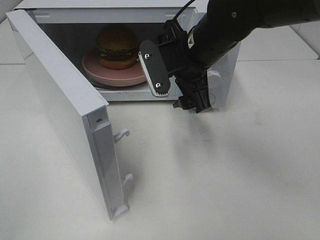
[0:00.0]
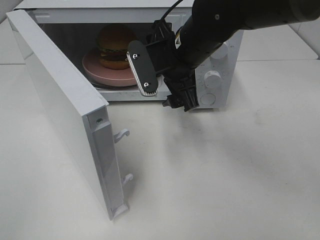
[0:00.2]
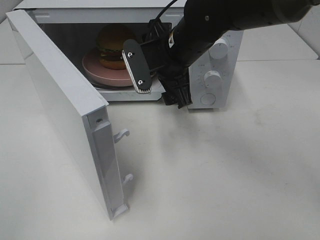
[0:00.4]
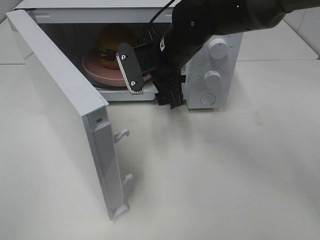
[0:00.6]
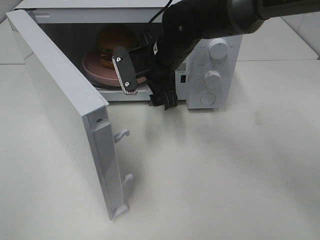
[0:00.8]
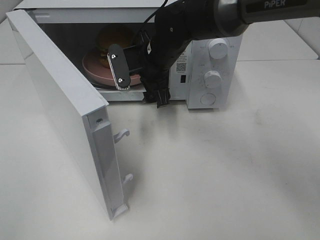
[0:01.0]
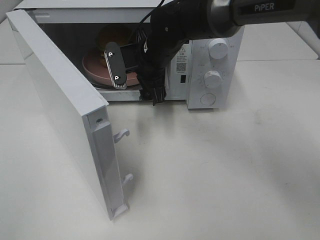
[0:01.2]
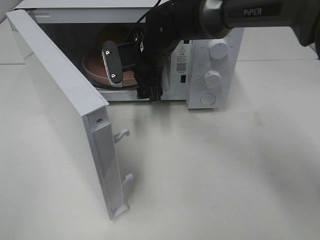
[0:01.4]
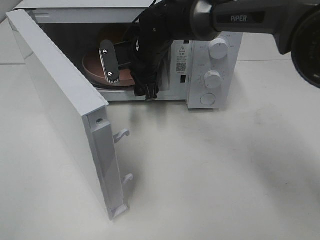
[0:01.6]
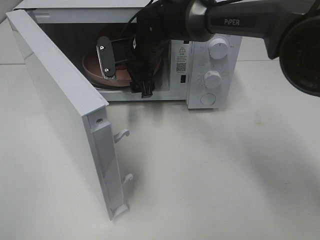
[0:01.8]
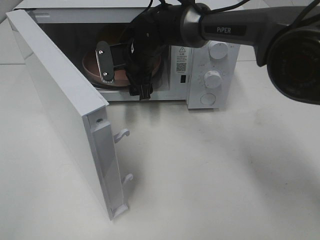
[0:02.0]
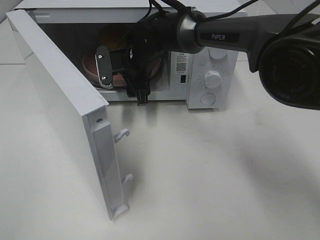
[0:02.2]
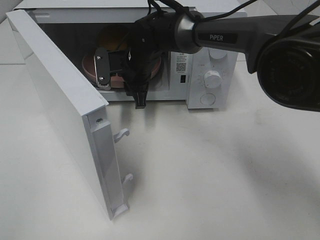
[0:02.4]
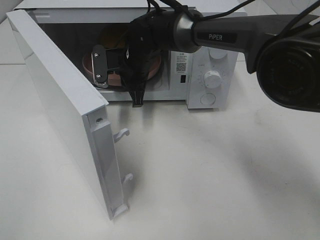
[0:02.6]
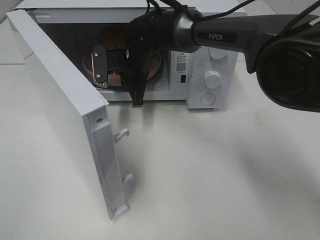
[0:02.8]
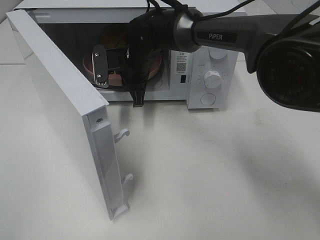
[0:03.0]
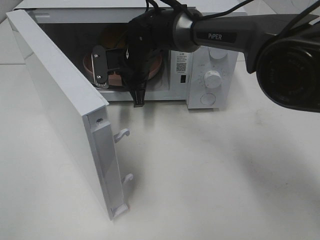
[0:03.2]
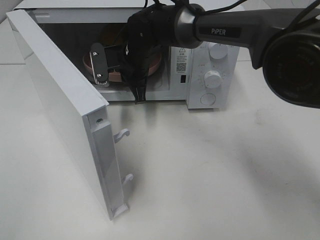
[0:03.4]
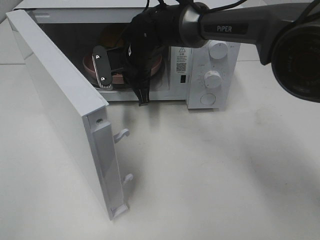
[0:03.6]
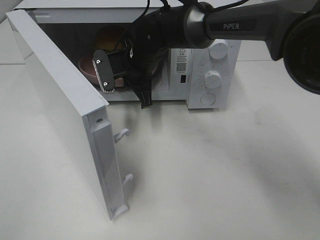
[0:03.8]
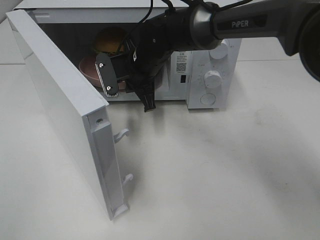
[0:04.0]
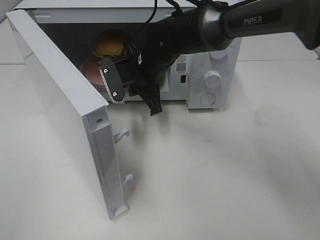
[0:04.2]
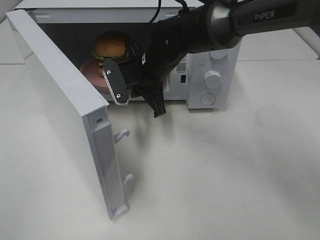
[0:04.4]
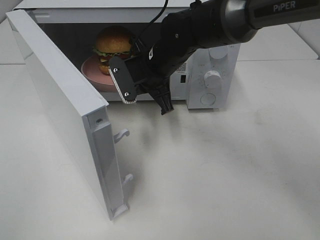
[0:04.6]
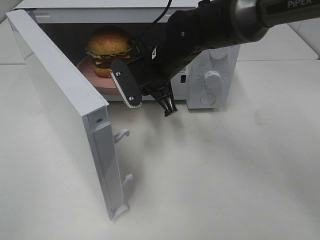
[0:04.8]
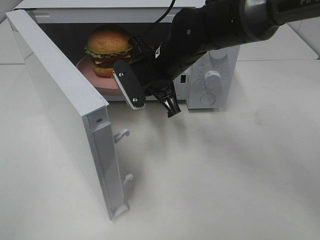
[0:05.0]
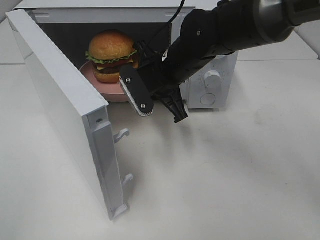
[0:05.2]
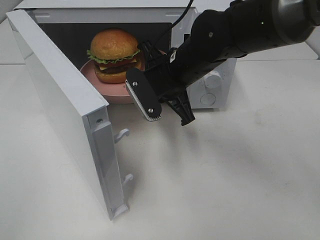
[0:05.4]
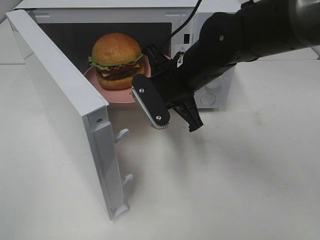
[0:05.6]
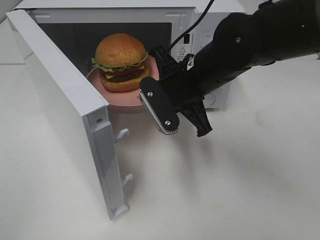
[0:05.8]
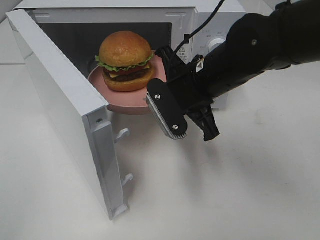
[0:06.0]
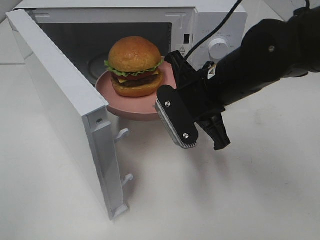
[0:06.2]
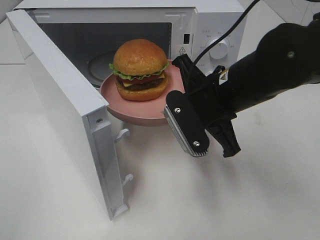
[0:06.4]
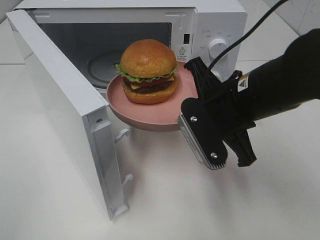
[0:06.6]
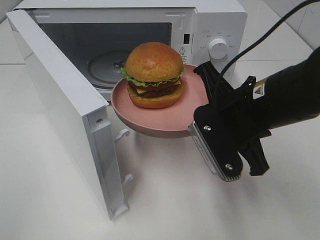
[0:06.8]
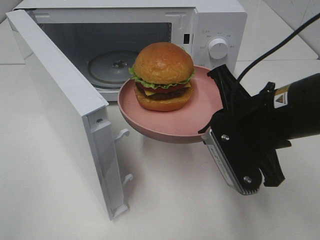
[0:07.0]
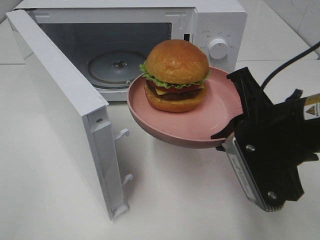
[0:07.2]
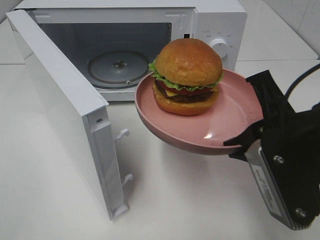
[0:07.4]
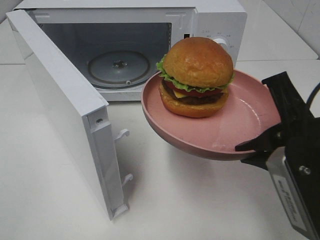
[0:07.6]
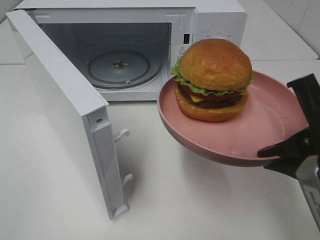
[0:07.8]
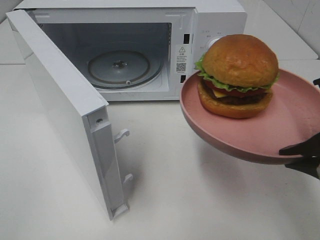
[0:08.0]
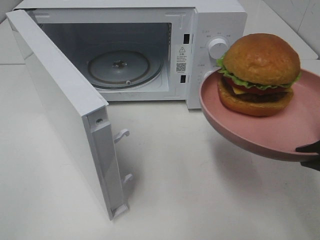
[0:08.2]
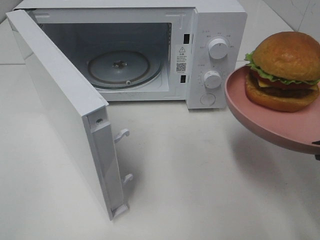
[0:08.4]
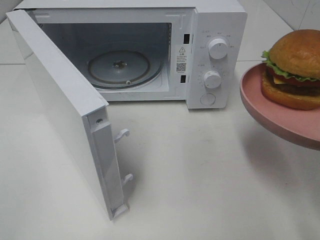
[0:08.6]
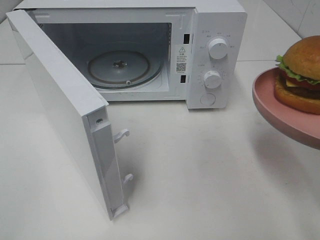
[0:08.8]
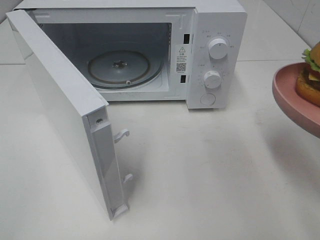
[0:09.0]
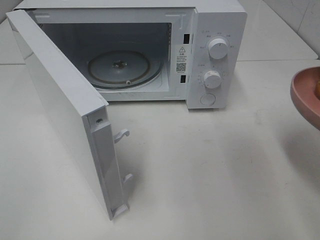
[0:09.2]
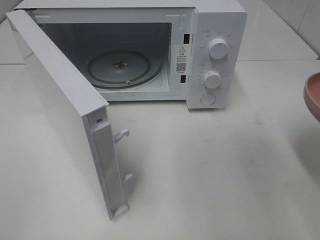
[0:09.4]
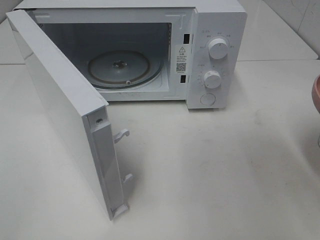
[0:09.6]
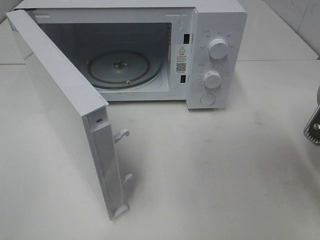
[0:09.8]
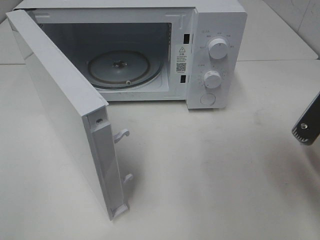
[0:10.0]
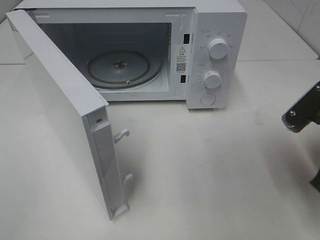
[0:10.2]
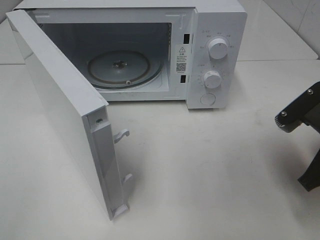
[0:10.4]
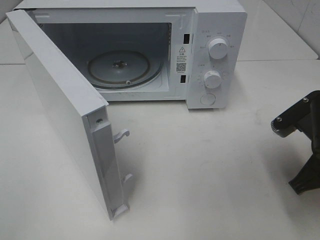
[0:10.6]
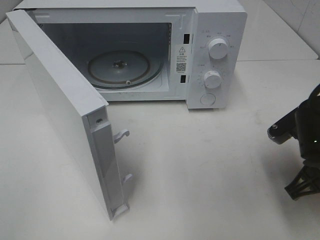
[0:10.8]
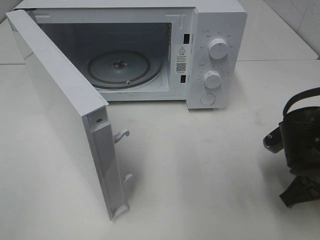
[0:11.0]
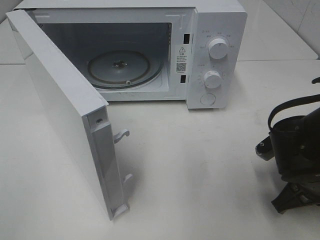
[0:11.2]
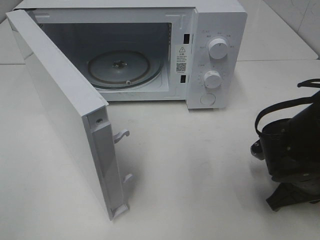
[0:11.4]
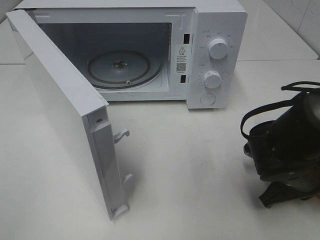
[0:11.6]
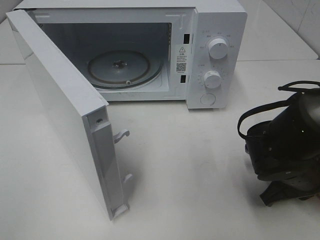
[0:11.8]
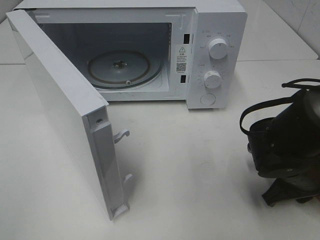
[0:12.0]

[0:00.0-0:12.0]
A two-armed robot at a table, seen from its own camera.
Task of the whole recording: Heat the burger.
Step, 0:00.0 to 0:02.8: Right hand: grab the plate with the hamburger.
0:00.0 to 0:01.6: The right gripper goes approximately 15 cm forward, to the left and downward.
0:01.6 to 0:03.0: The right gripper closes up.
0:03.0 to 0:04.4: The right gripper goes some 5 cm backward.
0:04.4 to 0:06.0: The right gripper moves backward and to the right, approximately 15 cm.
0:06.0 to 0:07.6: The right gripper shifts some 20 cm backward and to the right.
0:07.6 to 0:09.0: The right gripper travels to the right by some 5 cm.
0:09.0 to 0:10.4: The right gripper heads downward and forward, covering about 10 cm.
0:10.4 to 0:12.0: The right gripper goes roughly 10 cm downward, and opens up.

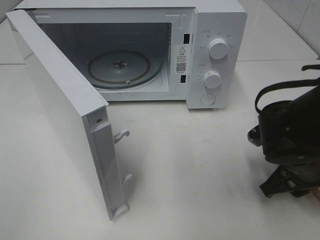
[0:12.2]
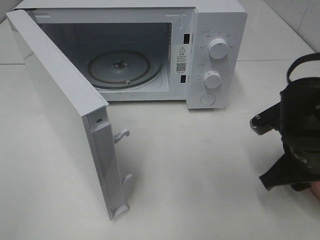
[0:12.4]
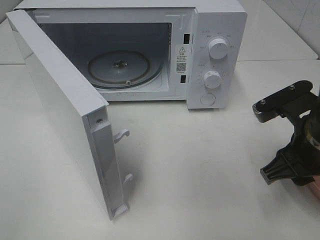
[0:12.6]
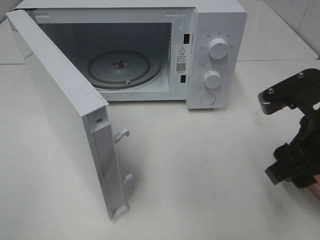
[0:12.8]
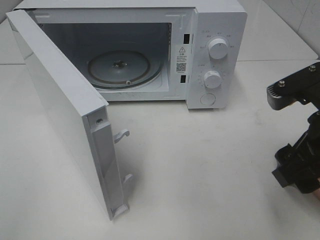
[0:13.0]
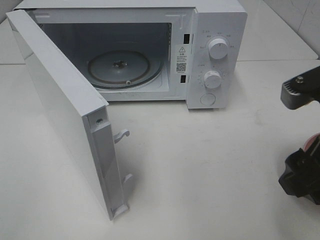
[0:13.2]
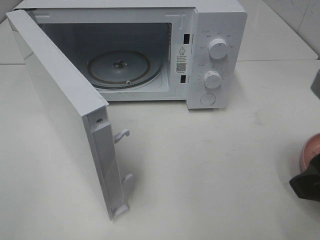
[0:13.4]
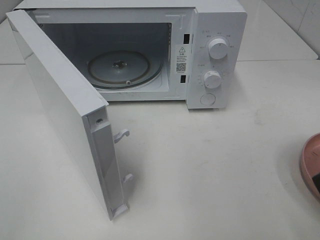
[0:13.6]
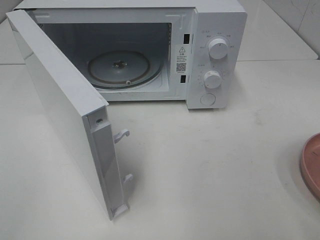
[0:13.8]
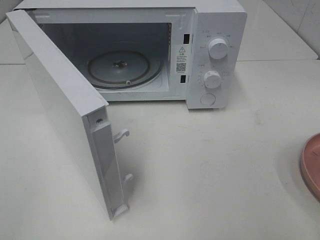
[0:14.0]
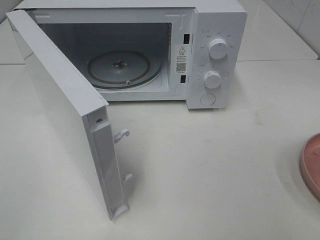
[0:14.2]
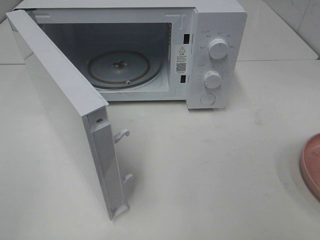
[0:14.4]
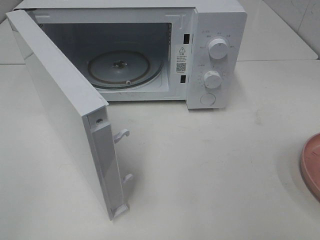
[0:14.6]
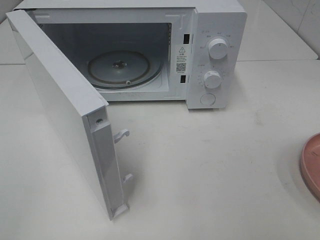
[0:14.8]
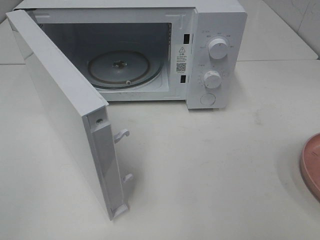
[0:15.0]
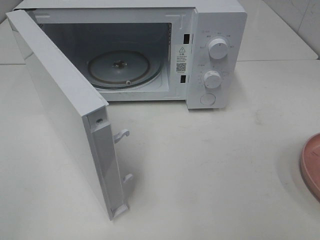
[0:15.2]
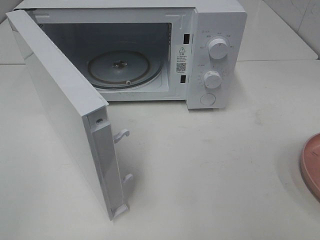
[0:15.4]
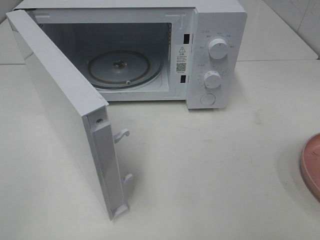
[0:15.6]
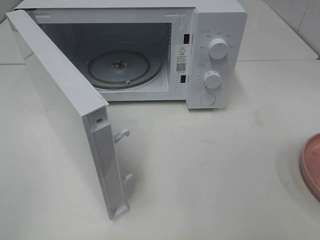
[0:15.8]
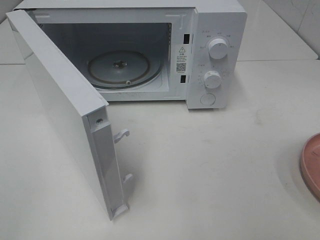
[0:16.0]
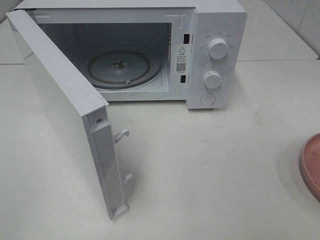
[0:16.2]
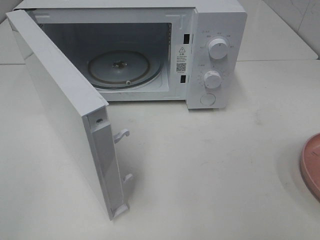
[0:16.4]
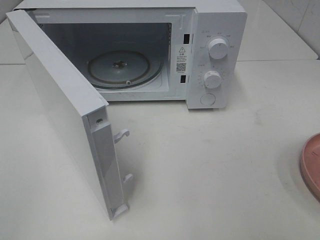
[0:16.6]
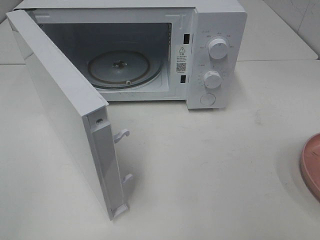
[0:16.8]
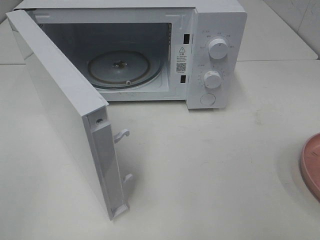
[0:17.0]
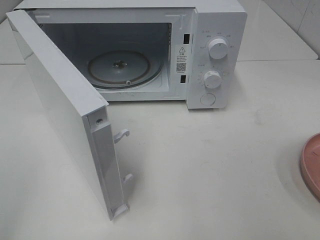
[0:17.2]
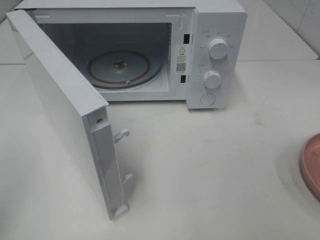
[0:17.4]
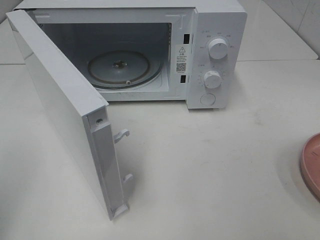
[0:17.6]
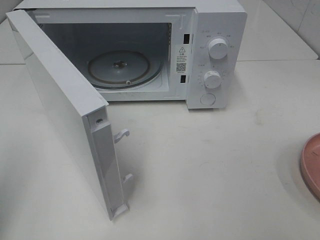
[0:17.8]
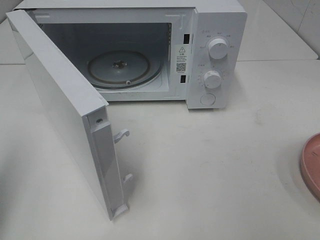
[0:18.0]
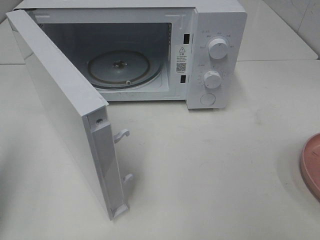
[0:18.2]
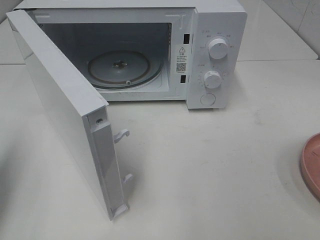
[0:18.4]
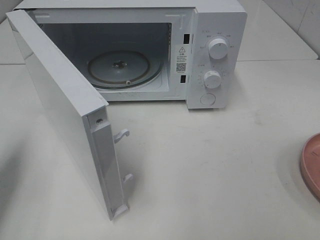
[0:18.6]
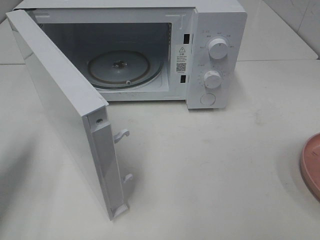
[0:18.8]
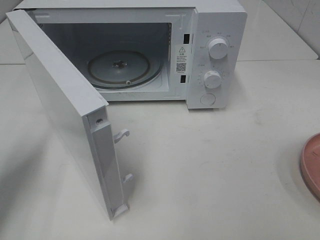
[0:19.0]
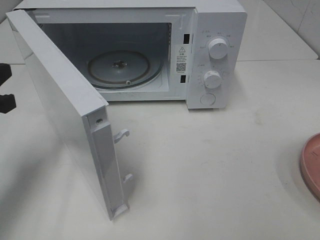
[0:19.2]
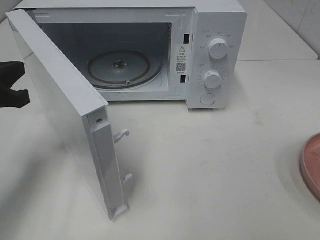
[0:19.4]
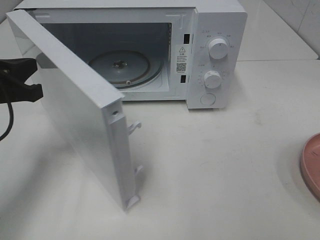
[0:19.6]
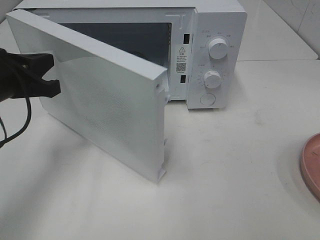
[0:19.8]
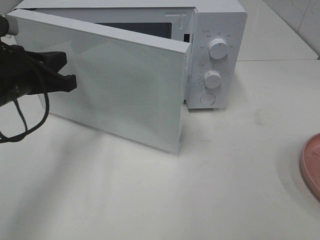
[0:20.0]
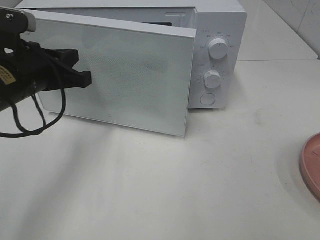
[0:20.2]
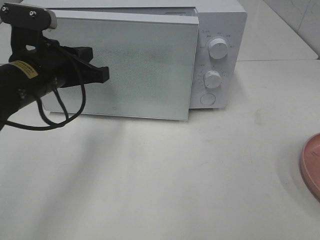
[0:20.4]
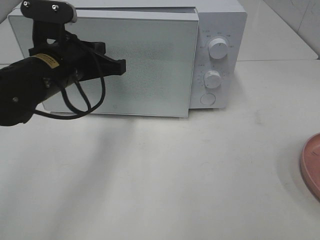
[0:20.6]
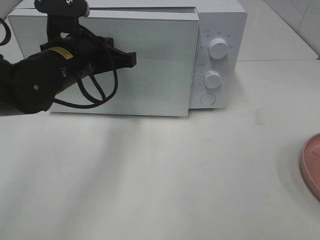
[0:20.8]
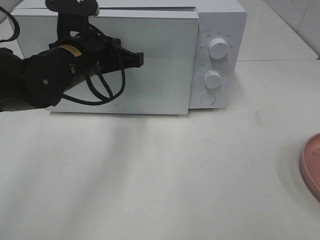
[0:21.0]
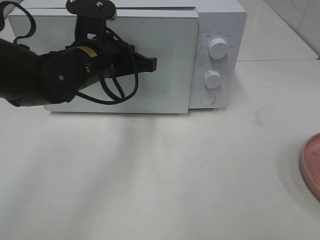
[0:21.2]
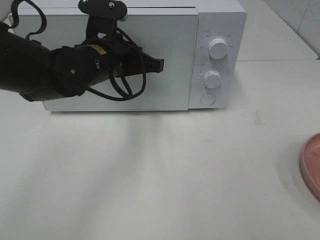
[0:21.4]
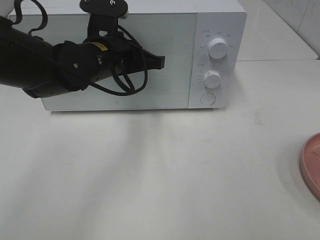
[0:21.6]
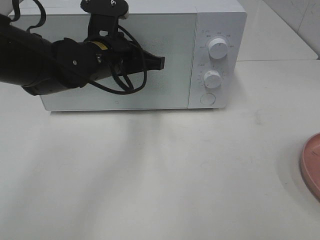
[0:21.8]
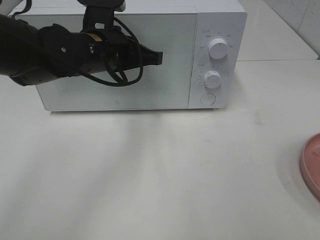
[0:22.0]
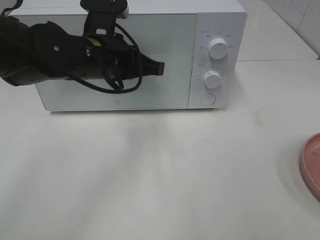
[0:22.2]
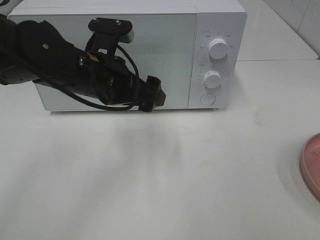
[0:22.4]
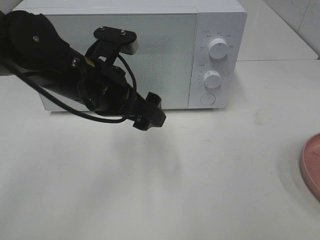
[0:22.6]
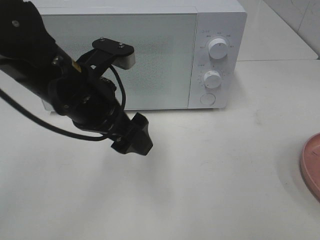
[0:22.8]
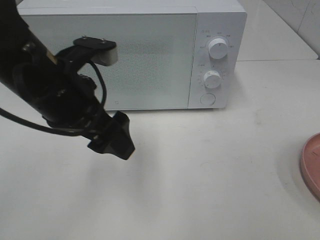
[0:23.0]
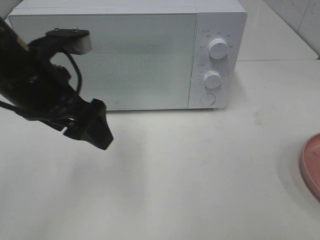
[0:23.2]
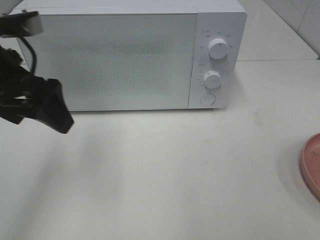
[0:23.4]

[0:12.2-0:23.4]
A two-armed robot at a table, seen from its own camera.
Task of the whole recording: Heat the burger.
Step, 0:12.6 to 0:22.4: Left hand: close the microwave door.
0:12.2 to 0:13.8: The right gripper is displaced upward and backward by about 25 cm.
0:17.0 to 0:18.6: The left gripper heads forward and downward, covering approximately 20 cm, and closes.
0:18.6 to 0:20.2: The left gripper travels to the right and forward by some 15 cm.
0:20.2 to 0:21.8: The left gripper goes roughly 10 cm to the right and forward.
0:21.8 to 0:23.4: The left gripper shifts about 20 cm to the left, backward and upward, and opens its fingers.
